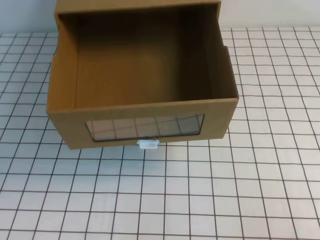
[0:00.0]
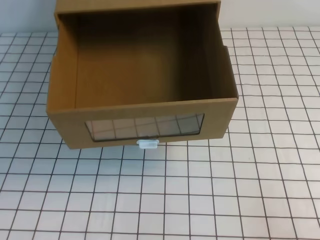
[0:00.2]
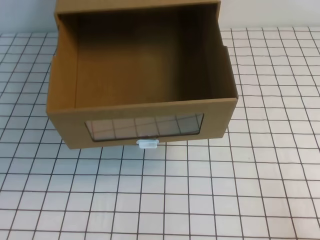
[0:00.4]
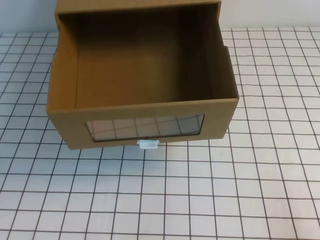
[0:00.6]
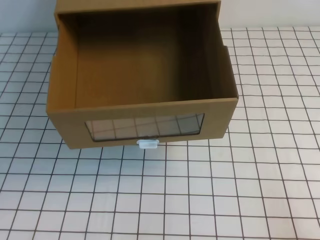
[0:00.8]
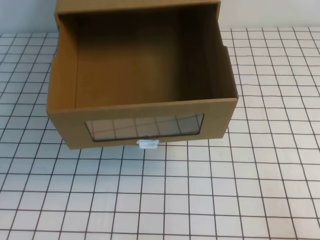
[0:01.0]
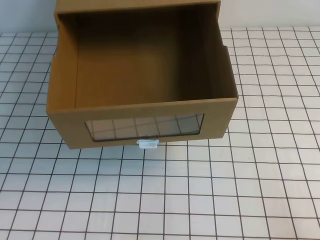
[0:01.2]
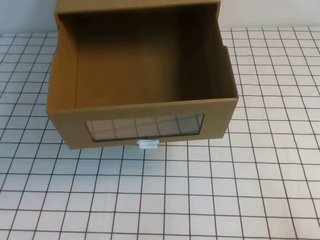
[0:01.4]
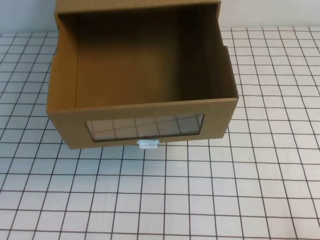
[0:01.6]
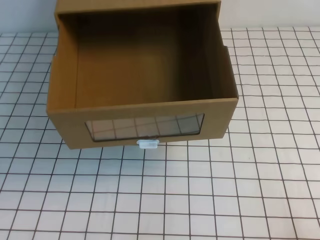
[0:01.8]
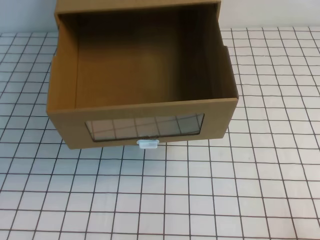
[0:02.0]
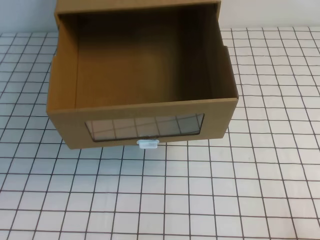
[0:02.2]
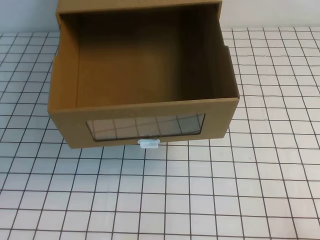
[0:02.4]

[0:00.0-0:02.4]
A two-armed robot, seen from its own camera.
Task of the whole recording: open the shoebox on the white tablecloth.
Step, 0:00.0 to 0:02.4: Open the shoe box.
0:01.2 to 0:02.4: The grippers stay close to where they were, moving slightly.

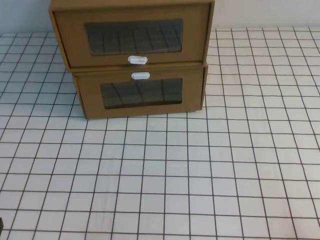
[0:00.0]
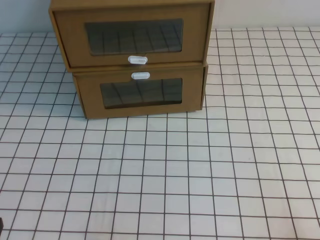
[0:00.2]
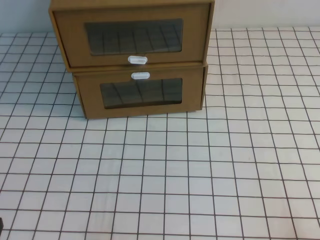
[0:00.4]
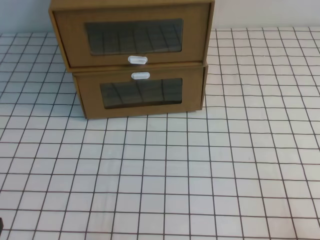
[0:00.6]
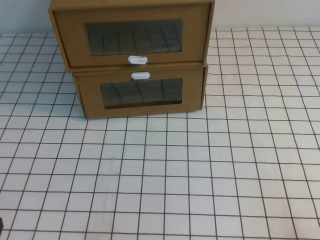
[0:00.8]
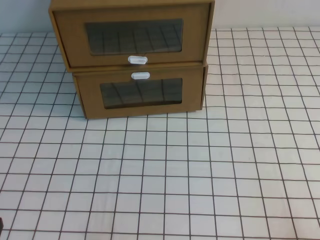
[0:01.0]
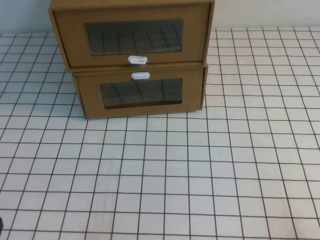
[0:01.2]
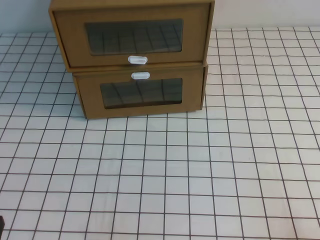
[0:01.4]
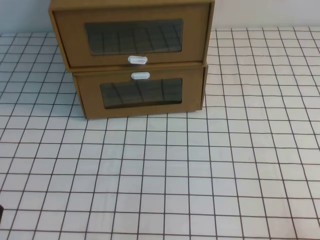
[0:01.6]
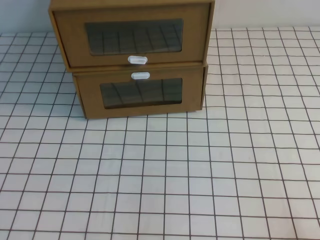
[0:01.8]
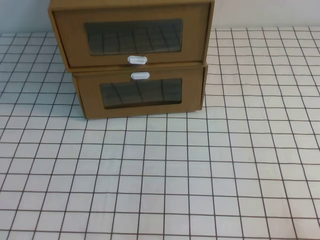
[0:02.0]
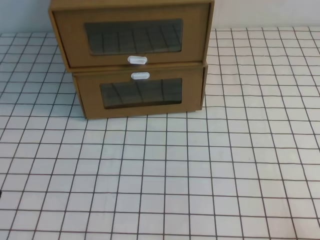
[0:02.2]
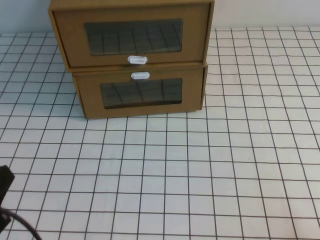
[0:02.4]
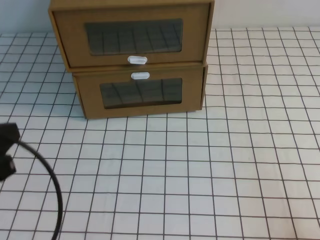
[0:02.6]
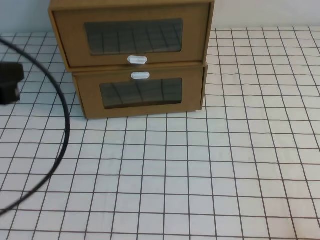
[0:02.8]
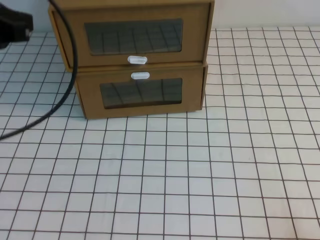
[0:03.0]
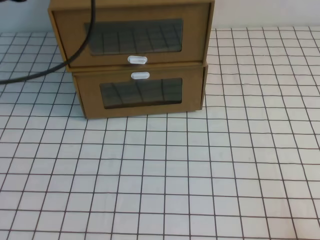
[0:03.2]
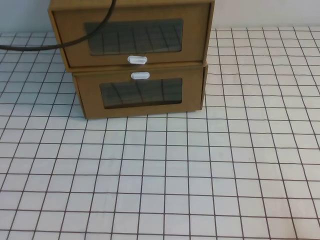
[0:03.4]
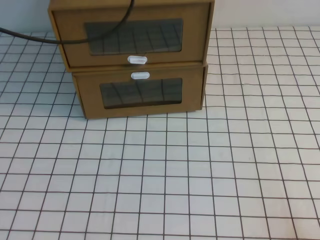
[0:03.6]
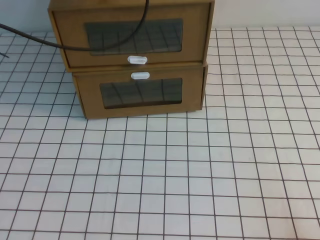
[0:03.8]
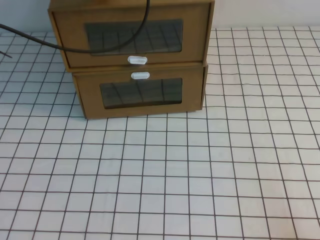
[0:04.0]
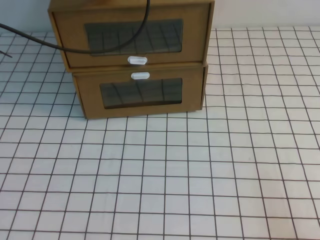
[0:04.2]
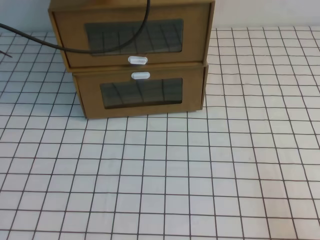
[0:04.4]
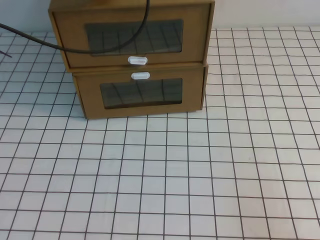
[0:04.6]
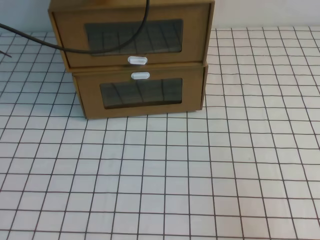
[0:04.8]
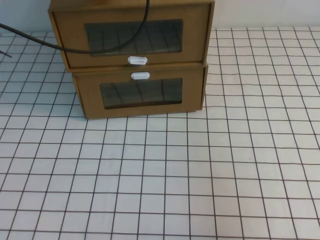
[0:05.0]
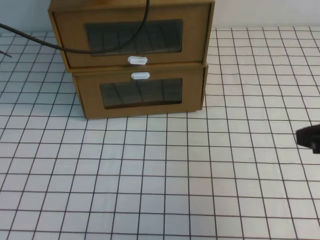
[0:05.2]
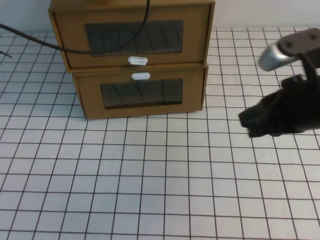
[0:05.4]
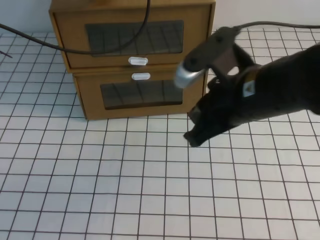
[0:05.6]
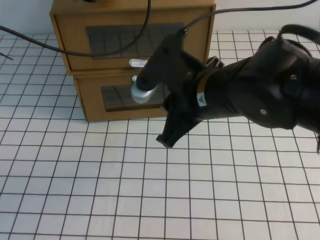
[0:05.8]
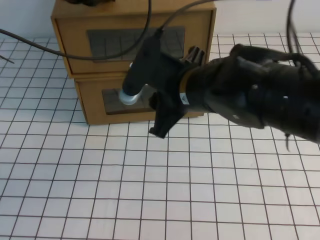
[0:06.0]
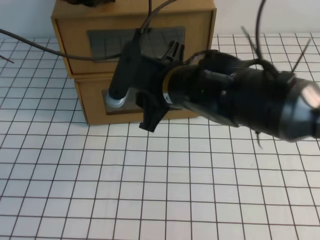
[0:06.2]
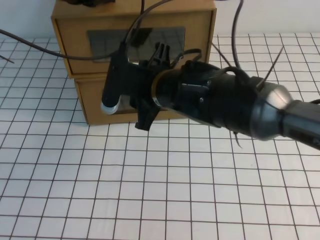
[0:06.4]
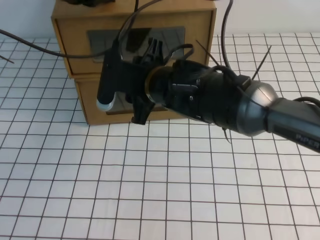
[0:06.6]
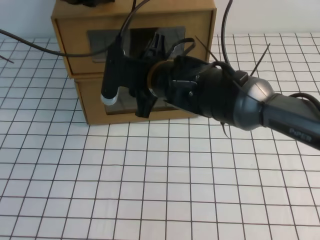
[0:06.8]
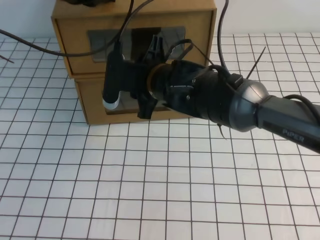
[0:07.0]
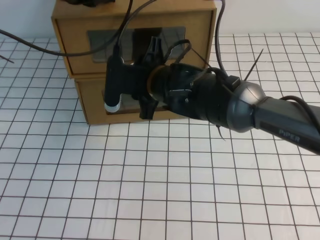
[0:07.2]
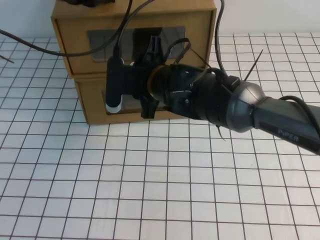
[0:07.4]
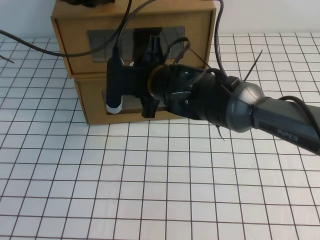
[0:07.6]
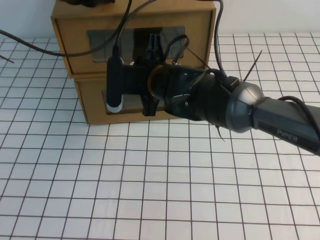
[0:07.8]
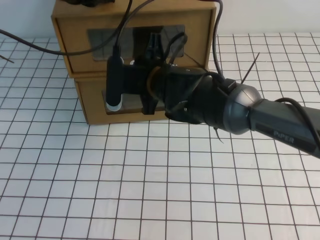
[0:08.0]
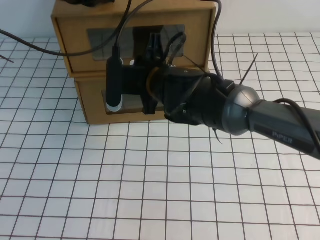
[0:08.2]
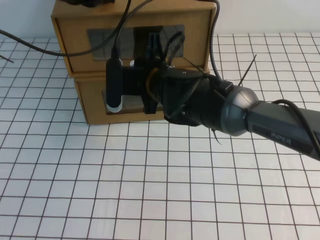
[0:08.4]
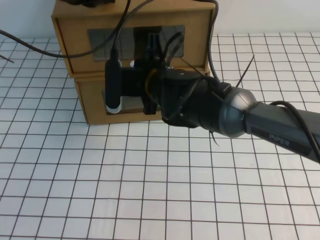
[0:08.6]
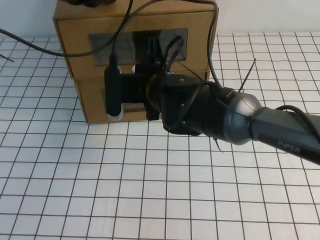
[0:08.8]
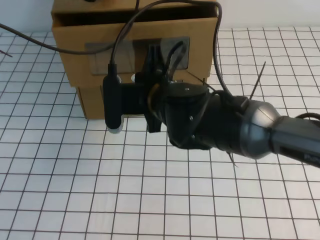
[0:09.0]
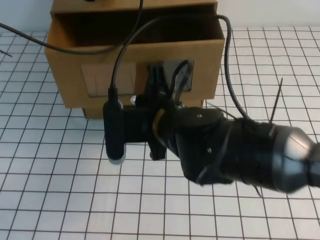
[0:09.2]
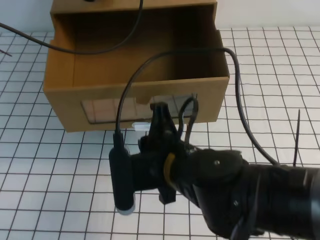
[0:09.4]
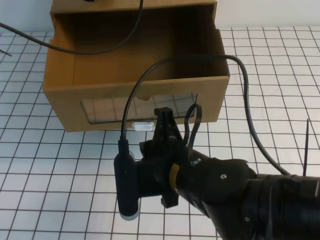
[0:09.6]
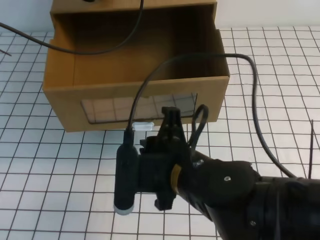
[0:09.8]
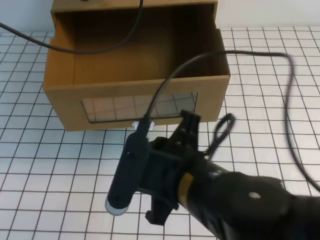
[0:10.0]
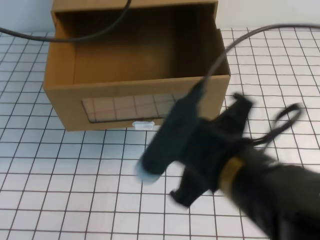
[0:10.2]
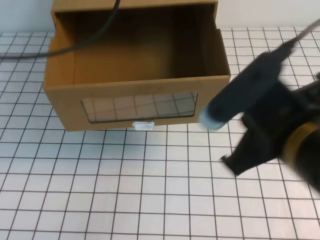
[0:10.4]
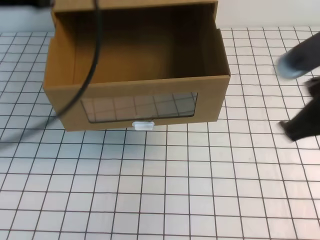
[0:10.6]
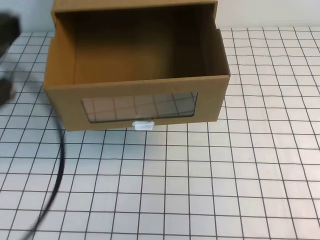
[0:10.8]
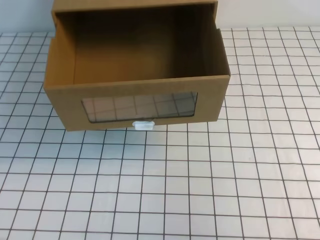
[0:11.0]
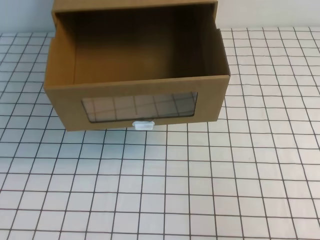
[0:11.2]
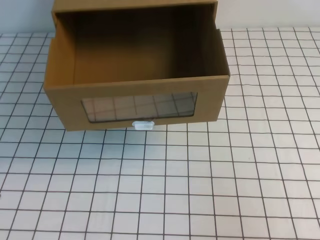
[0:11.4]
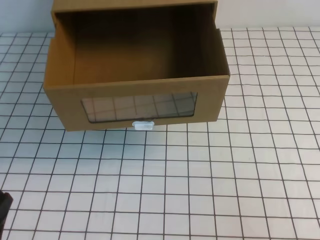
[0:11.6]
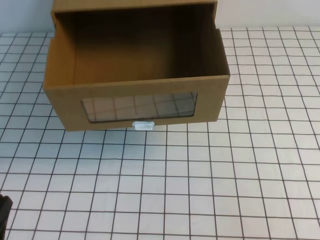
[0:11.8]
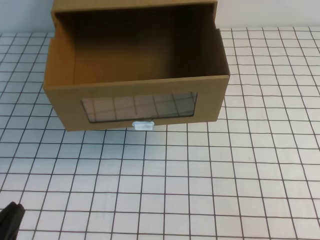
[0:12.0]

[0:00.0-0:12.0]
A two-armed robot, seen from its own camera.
Task of the whole recording: open the shoebox on the white tablecloth.
0:01.6 to 0:03.0: The left gripper heads upward and forward, covering some 30 cm.
0:03.0 to 0:04.4: The left gripper goes roughly 20 cm forward and to the right.
0:04.4 to 0:06.0: The right gripper heads to the left, forward and upward, covering about 35 cm, and opens.
0:06.0 to 0:07.6: The right gripper moves forward, to the left and downward, about 10 cm.
0:07.6 to 0:09.0: The right gripper heads backward, covering approximately 5 cm, and closes its fingers.
0:09.0 to 0:10.4: The right gripper heads backward, to the right and upward, covering approximately 20 cm, while the left gripper moves backward and upward, approximately 15 cm.
0:10.4 to 0:12.0: The left gripper heads downward and backward, covering roughly 40 cm. Meanwhile the right gripper heads to the right and backward, covering approximately 20 cm.

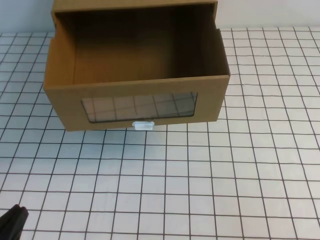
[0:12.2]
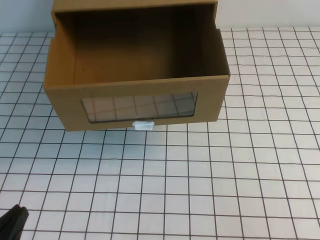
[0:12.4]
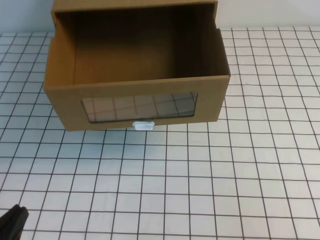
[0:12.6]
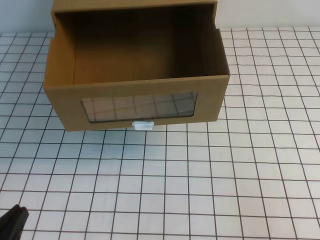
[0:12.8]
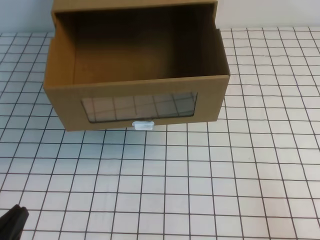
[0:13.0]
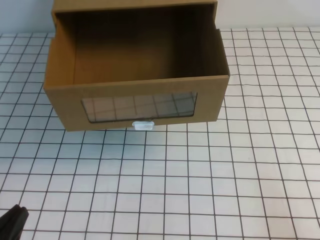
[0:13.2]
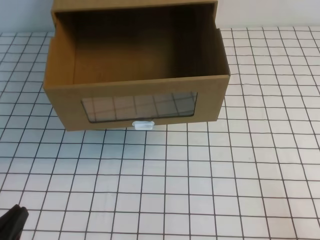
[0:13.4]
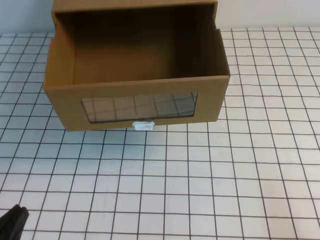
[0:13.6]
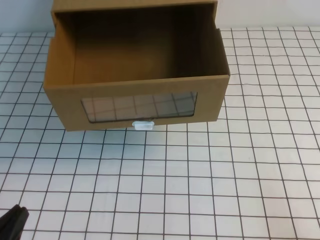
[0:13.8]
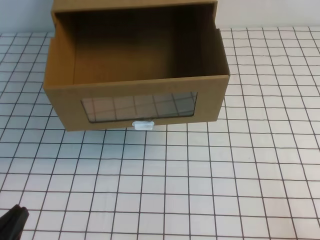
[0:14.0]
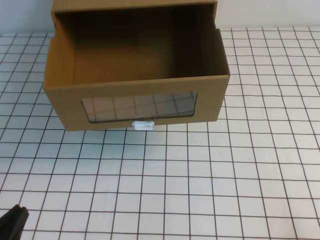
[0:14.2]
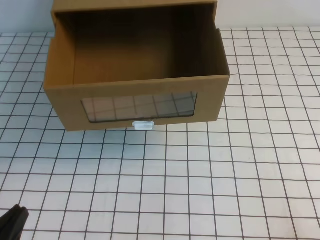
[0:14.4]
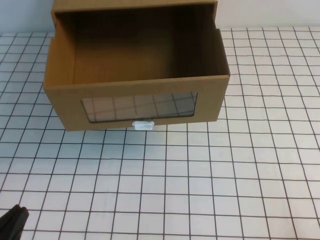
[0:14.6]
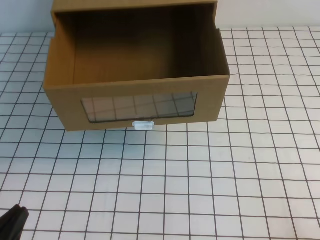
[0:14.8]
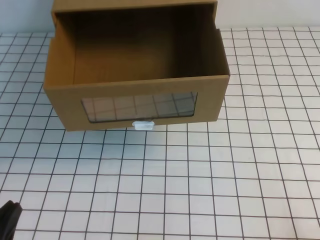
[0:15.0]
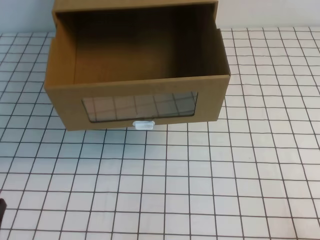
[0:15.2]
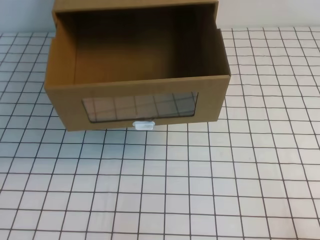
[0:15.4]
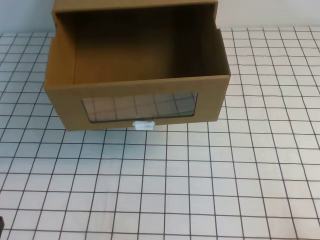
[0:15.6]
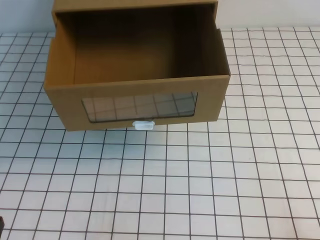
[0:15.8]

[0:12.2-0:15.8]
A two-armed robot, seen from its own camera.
Task of the whole recording: open the shoebox on the white tablecloth.
Step, 0:12.2 to 0:15.8: Open the shoe box.
0:14.0 to 0:15.8: The grippers move only a little.

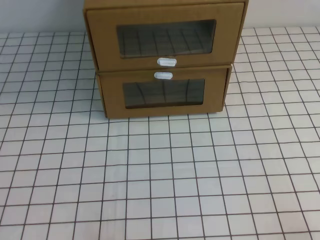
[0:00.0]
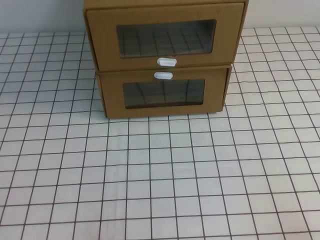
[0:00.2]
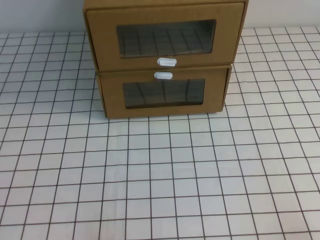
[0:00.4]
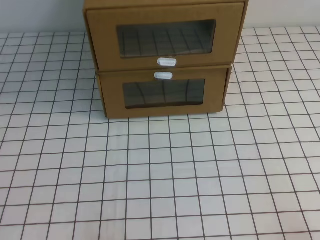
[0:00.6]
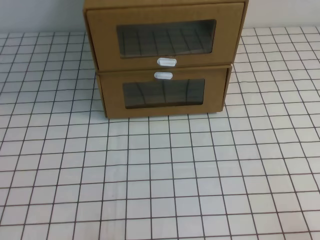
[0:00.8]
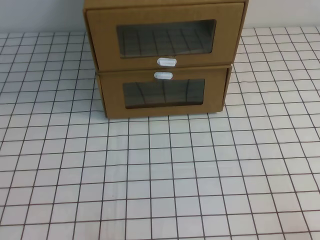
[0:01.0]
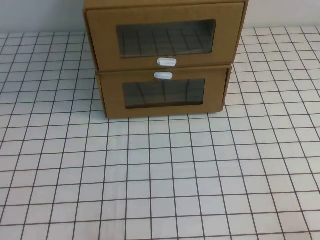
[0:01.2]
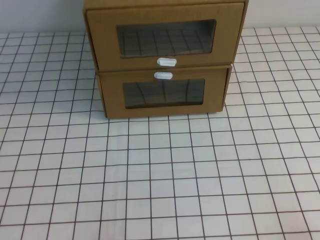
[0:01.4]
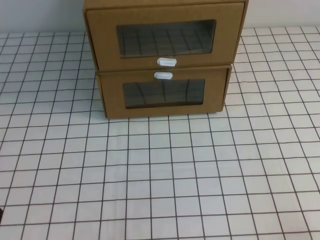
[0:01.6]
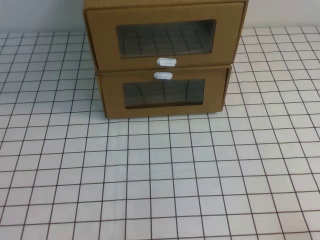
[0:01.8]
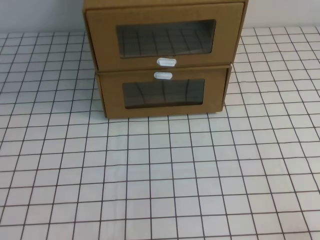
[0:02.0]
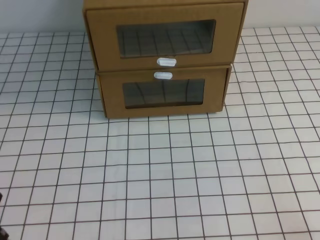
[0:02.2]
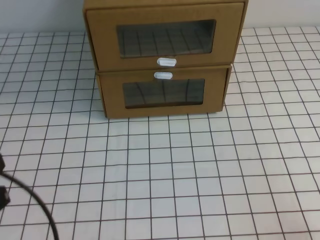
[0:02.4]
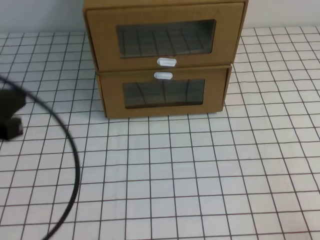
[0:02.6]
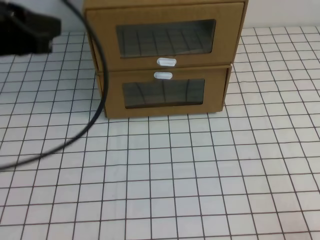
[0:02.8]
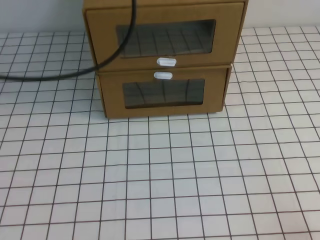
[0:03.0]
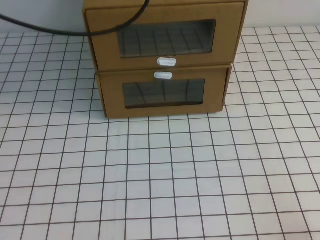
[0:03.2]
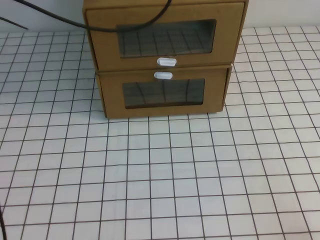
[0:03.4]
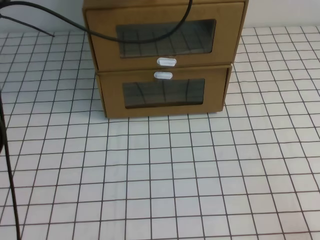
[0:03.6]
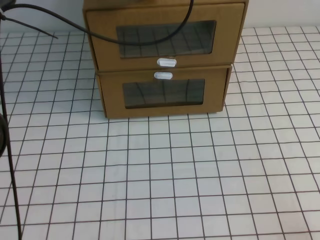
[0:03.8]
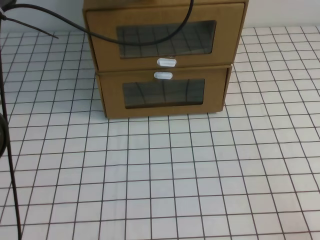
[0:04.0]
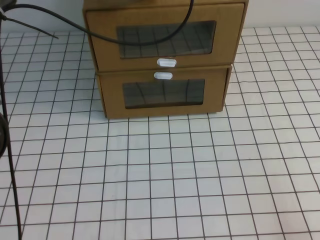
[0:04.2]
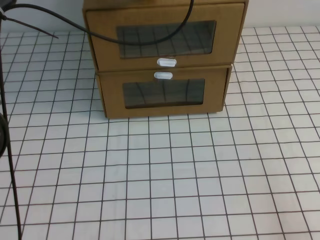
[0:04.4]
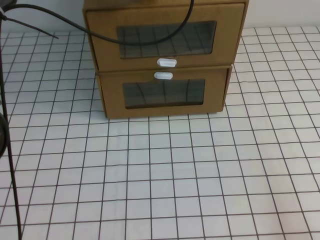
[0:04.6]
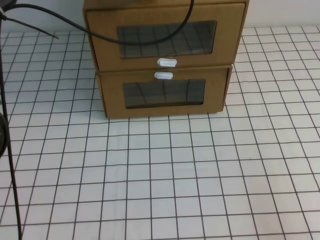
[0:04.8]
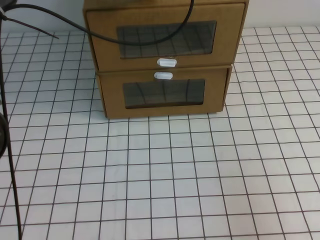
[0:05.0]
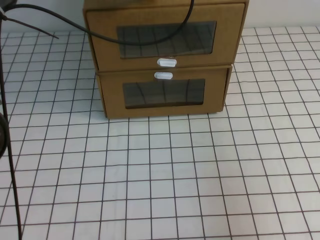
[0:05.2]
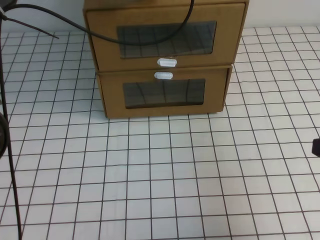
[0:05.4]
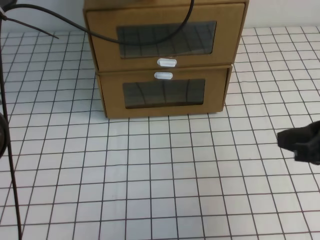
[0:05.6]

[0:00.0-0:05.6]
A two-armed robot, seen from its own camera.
Task of the whole recording: open the shoebox on the white tablecloth.
0:01.4 to 0:02.8: The left gripper goes about 30 cm upward and forward.
0:02.8 to 0:04.2: The left gripper goes some 25 cm forward and to the right.
0:04.2 to 0:05.6: The right gripper moves forward, upward and to the left, some 20 cm.
